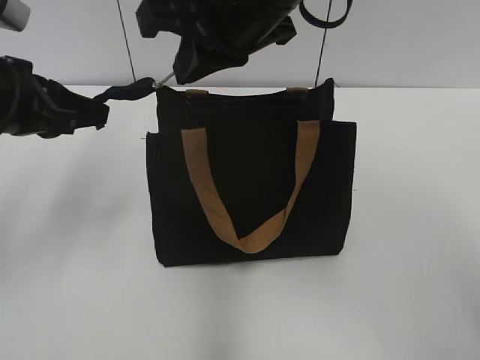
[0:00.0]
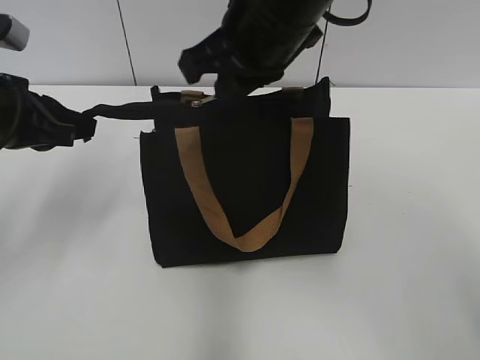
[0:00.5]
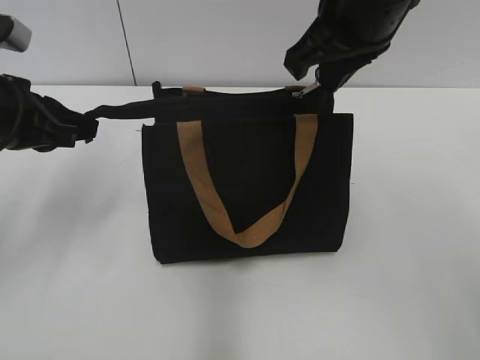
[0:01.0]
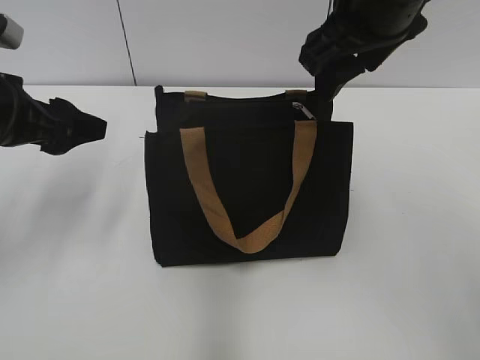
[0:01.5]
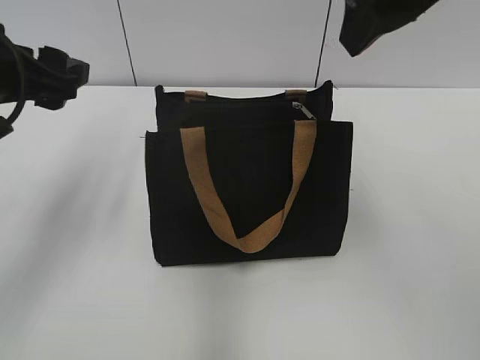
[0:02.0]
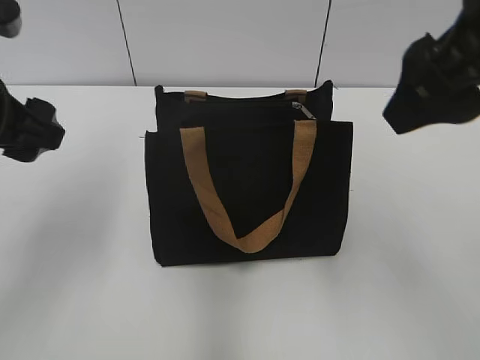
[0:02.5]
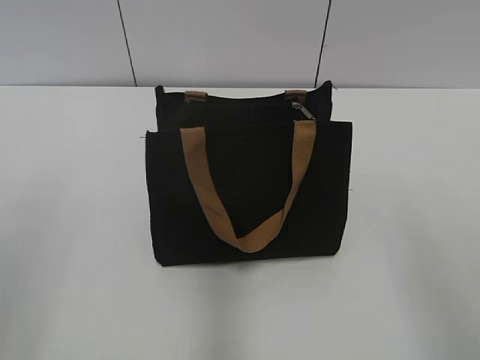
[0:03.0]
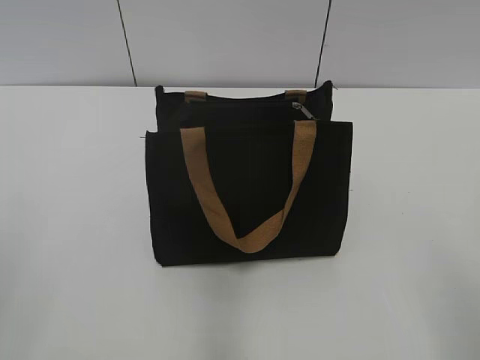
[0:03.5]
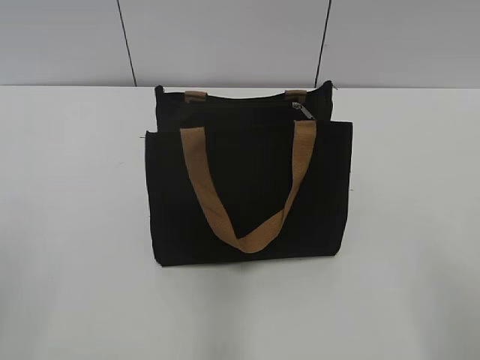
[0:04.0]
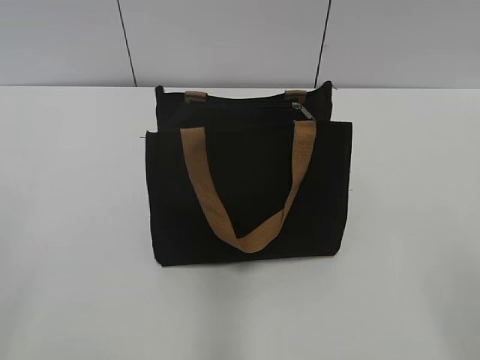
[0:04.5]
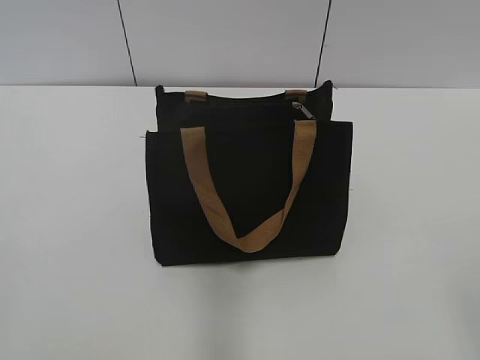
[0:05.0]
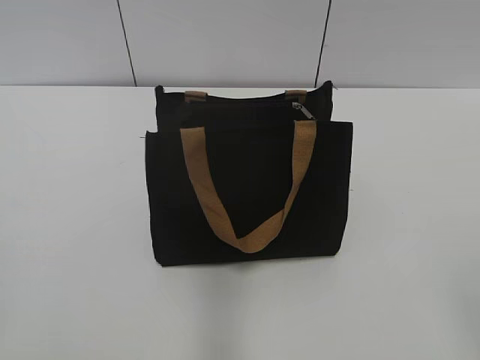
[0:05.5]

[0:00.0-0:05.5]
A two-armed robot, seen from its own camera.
0:00.0 to 0:02.0: The right gripper moves to the right and upward, approximately 10 cm, and opens; the left gripper opens up.
0:02.0 to 0:03.5: The right gripper is displaced backward, to the right and downward by some 30 cm; the left gripper moves backward, approximately 25 cm.

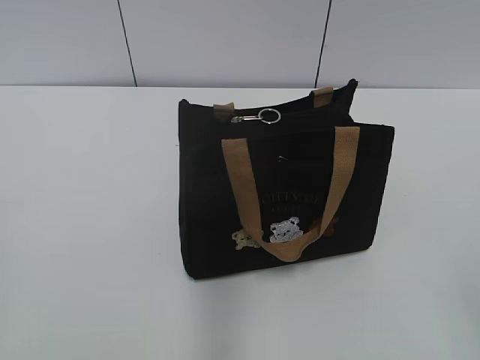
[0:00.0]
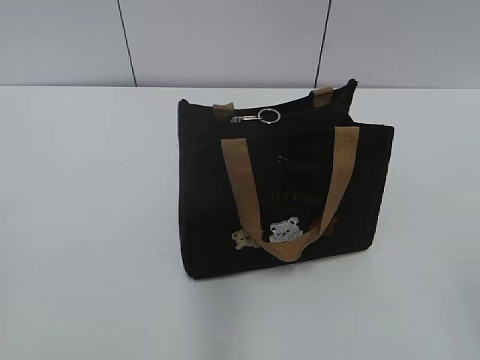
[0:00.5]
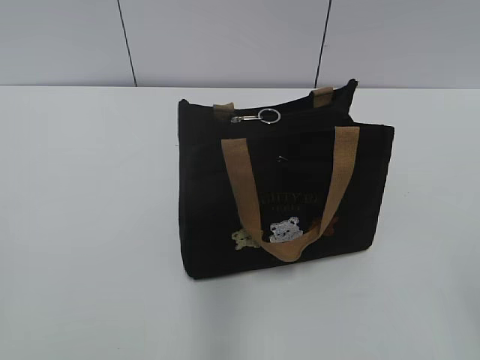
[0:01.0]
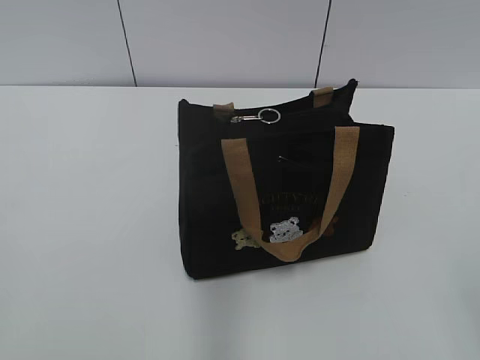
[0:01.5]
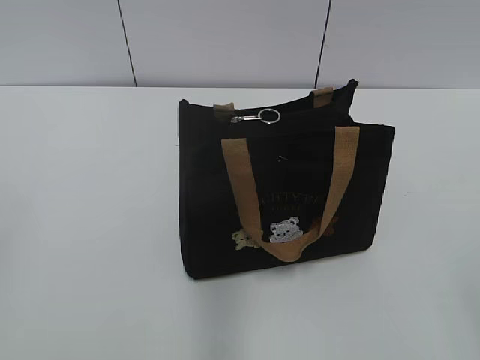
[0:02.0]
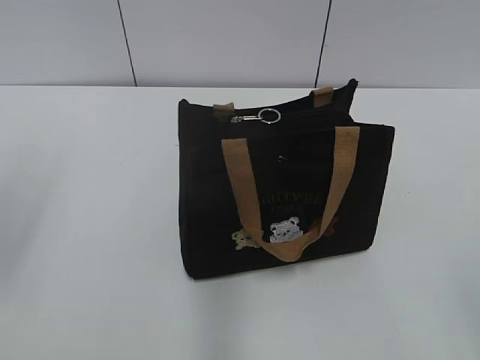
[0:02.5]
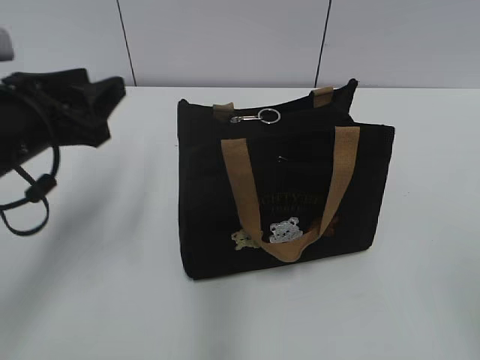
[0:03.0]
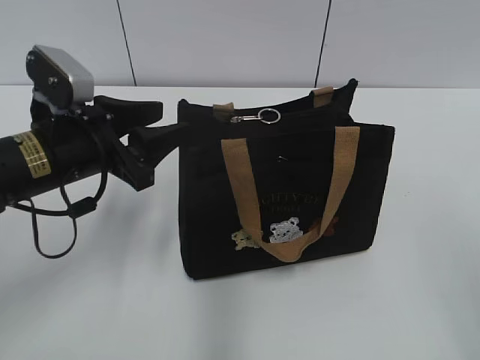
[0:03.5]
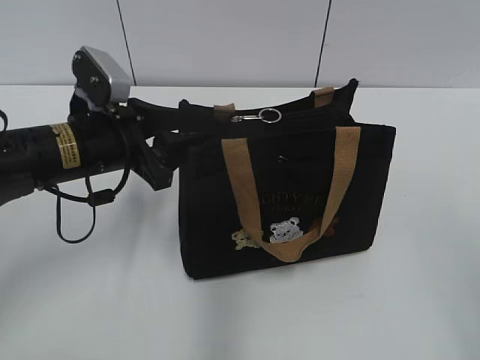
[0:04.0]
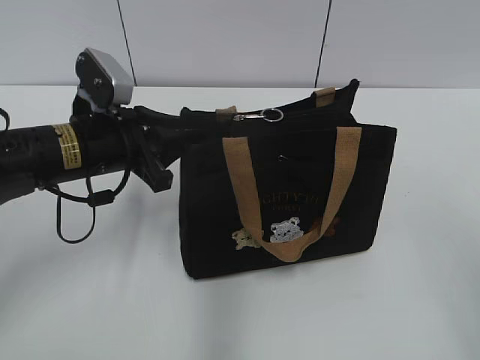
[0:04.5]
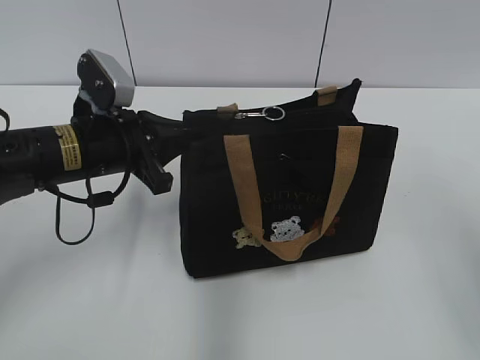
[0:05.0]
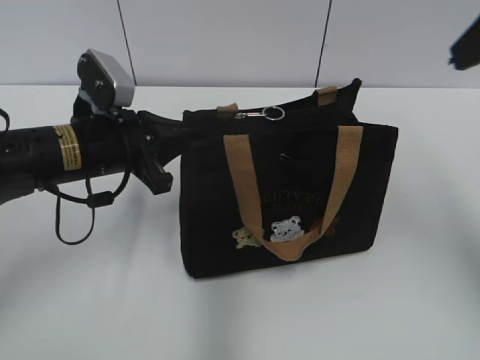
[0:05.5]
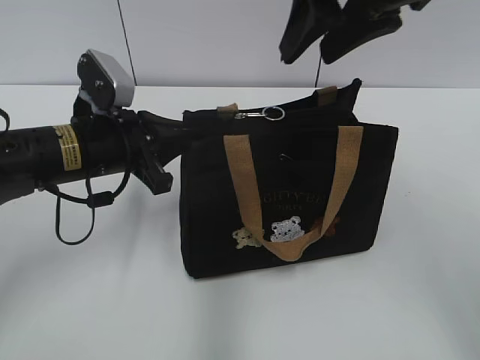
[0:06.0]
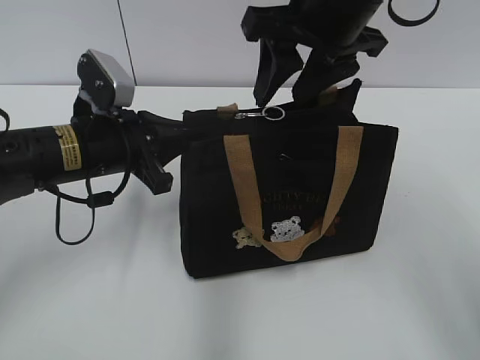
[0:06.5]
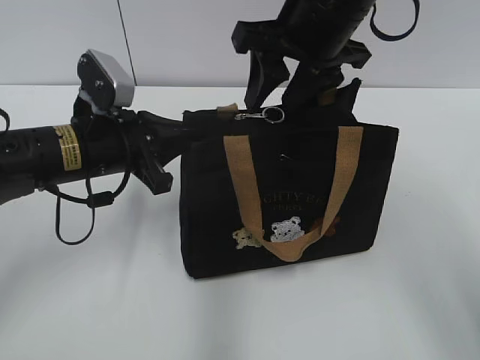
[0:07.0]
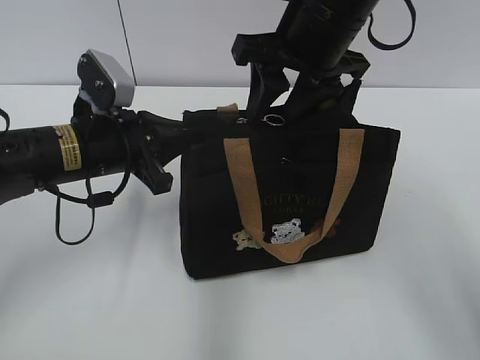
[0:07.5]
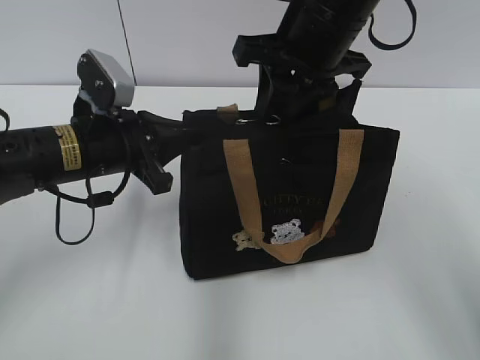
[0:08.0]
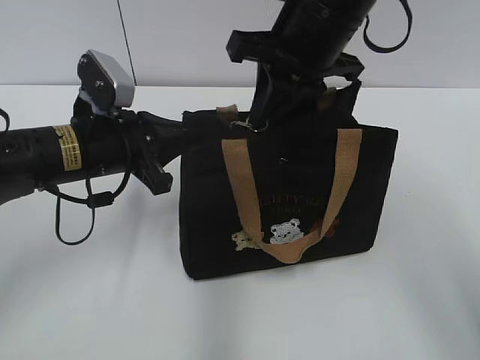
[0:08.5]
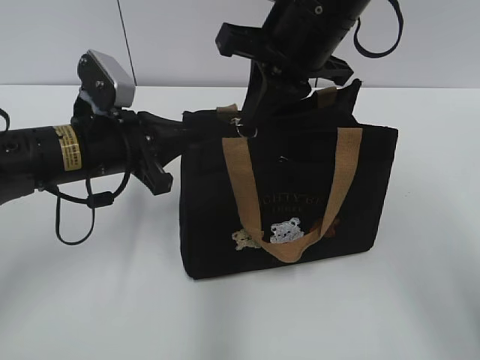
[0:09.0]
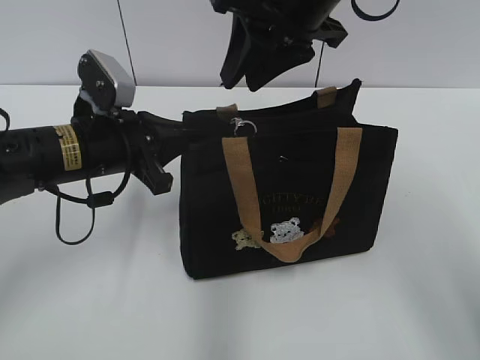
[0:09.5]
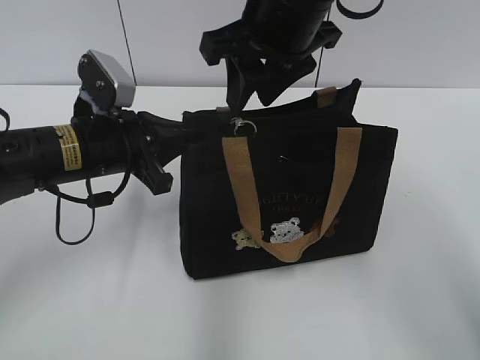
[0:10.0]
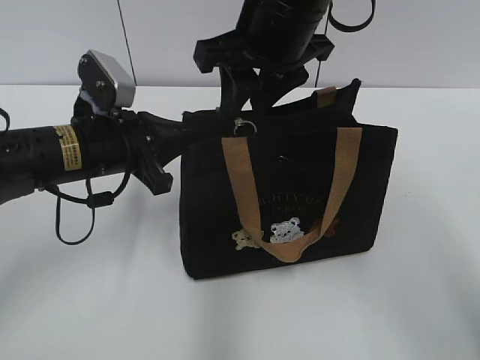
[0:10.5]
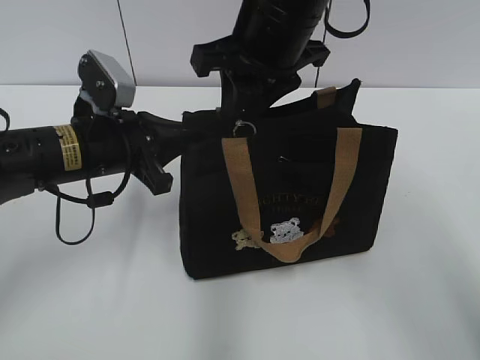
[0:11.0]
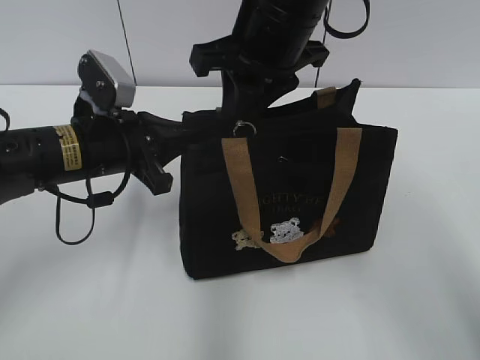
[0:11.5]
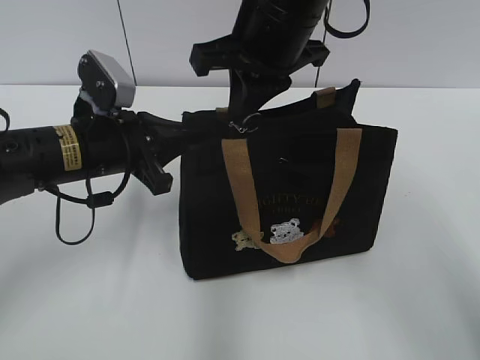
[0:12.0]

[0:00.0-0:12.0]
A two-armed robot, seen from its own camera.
0:02.0 to 0:04.0: The left gripper heads forward, downward and to the right, covering some 35 cm. The right gripper moves forward and upward, about 10 cm.
0:04.0 to 0:06.0: The right gripper is displaced forward and to the left by about 30 cm. Meanwhile the left gripper closes.
0:06.0 to 0:08.0: The right gripper heads downward, covering roughly 5 cm.
0:08.0 to 0:10.0: The right gripper closes, then reopens.
0:10.0 to 0:12.0: The right gripper closes its fingers.

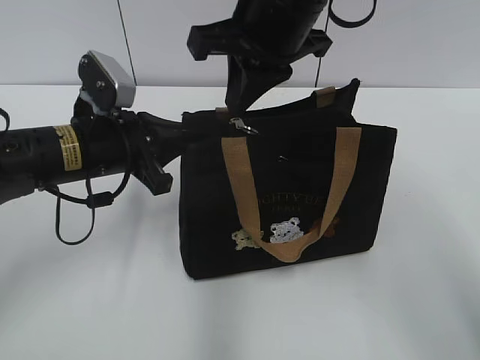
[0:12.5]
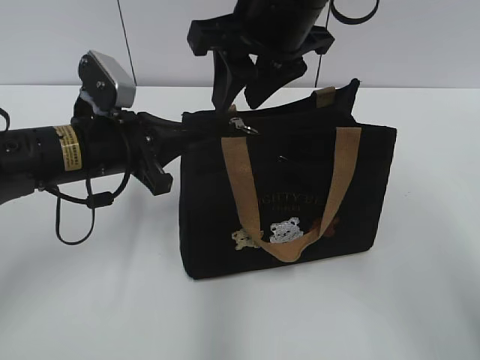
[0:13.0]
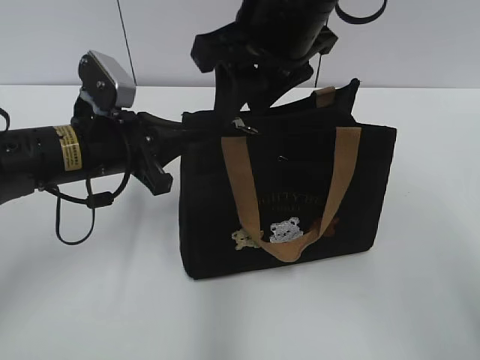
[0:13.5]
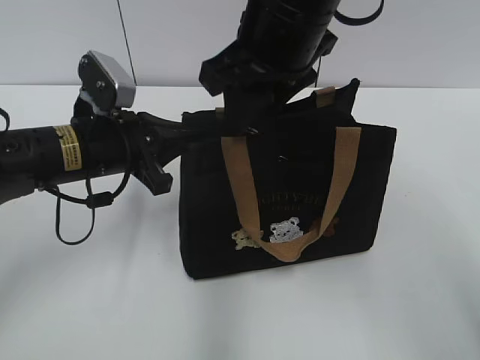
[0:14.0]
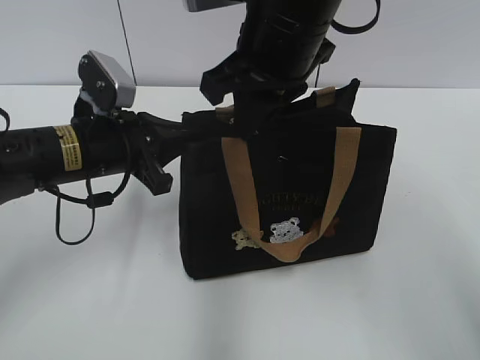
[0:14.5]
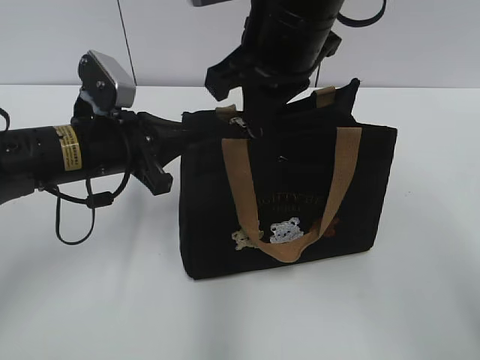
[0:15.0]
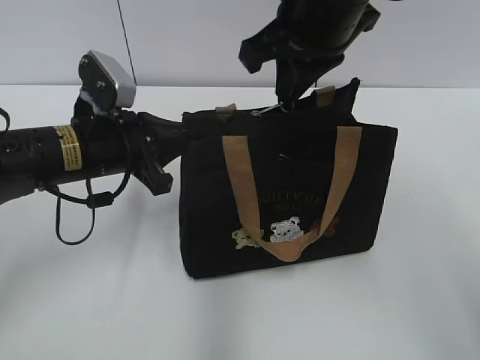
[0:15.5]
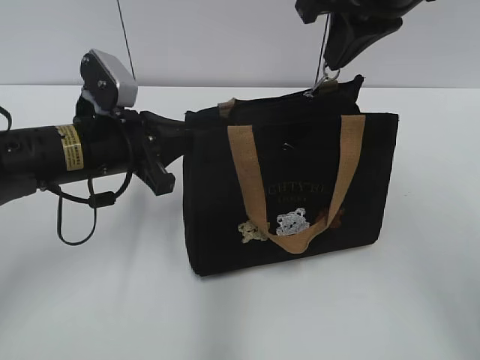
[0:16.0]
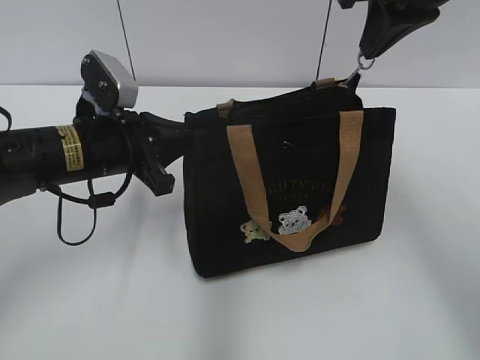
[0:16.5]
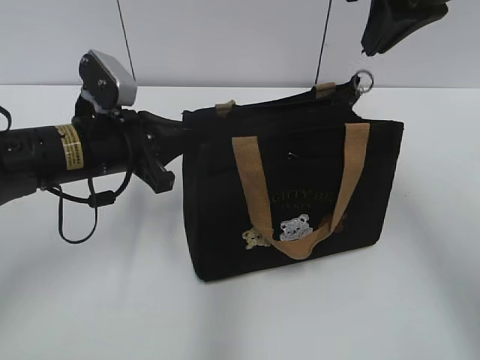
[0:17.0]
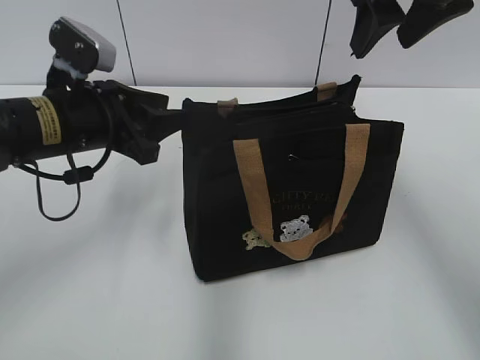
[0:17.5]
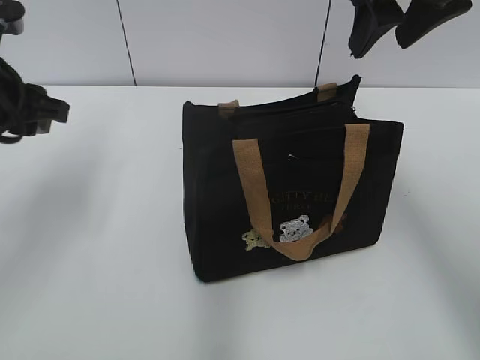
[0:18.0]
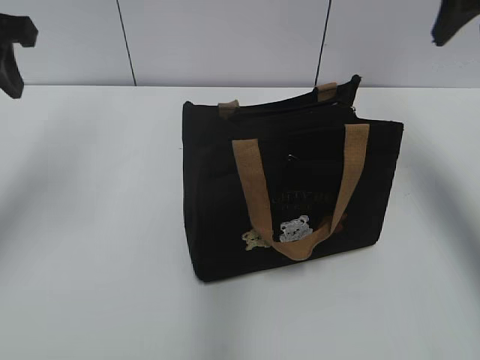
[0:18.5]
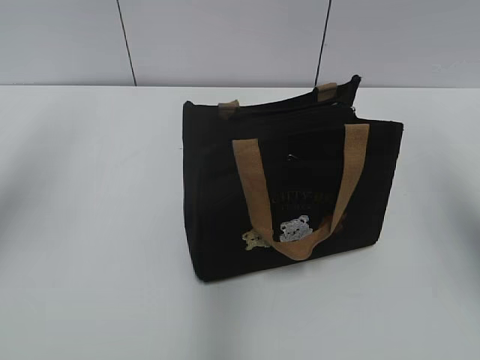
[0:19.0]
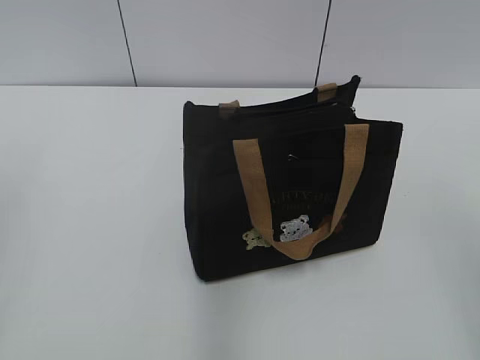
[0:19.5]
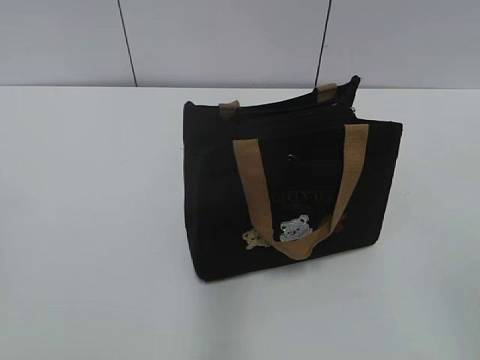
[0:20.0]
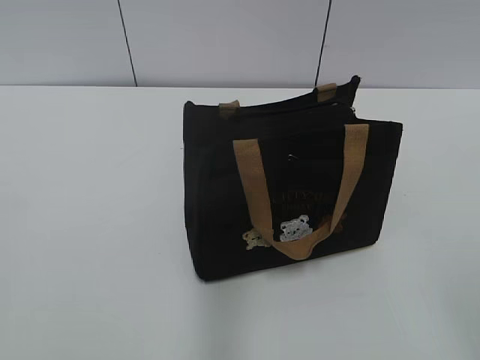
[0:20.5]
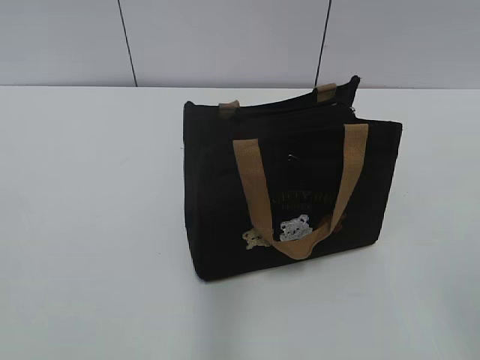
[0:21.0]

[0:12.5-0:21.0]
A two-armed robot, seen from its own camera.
Step, 0:12.5 to 0:17.0: Pull open the zipper with your right hand.
0:12.5 to 0:14.5: The right gripper opens, then closes once more.
0:14.5 to 0:16.5: The right gripper moves to the right and upward, approximately 15 cm.
0:16.5 to 0:19.0: The left gripper is displaced upward and to the left by approximately 20 cm, and opens up, while the right gripper shifts some 15 cm to the right and backward, and opens.
0:19.0 to 0:21.0: Both grippers move backward, roughly 25 cm.
